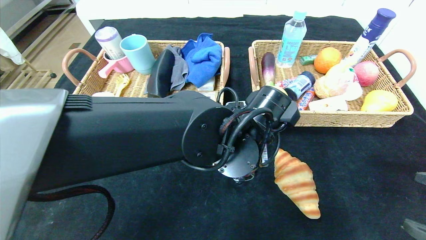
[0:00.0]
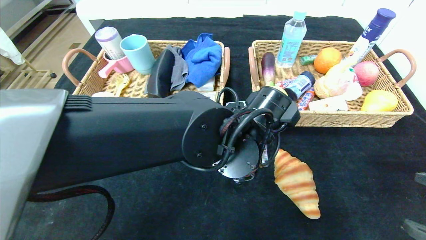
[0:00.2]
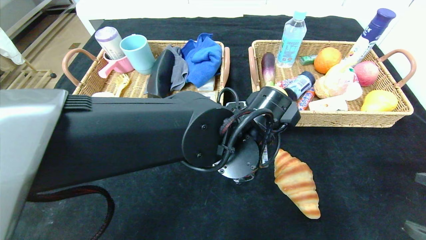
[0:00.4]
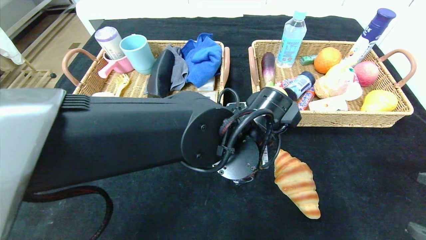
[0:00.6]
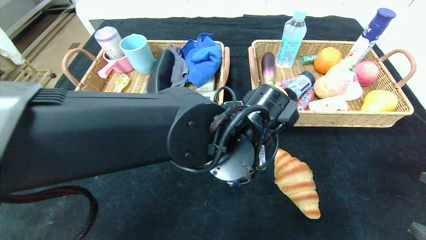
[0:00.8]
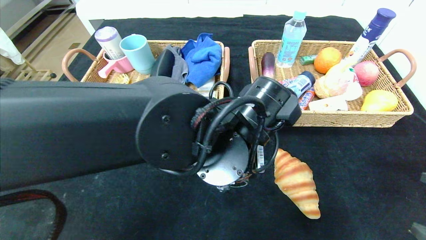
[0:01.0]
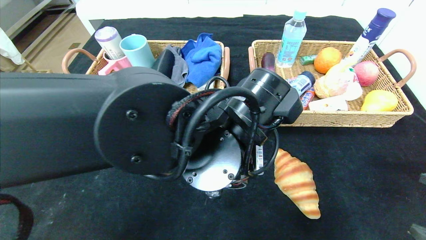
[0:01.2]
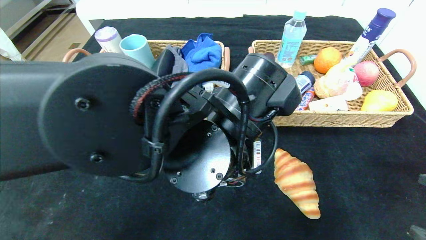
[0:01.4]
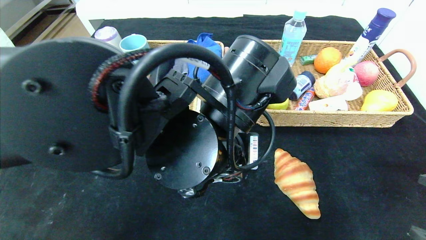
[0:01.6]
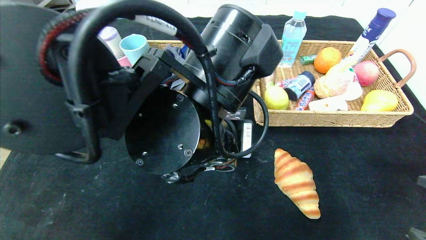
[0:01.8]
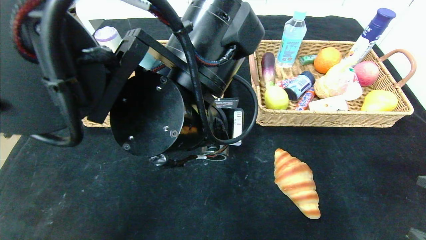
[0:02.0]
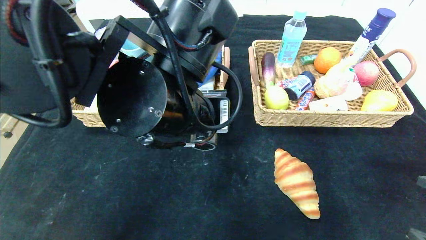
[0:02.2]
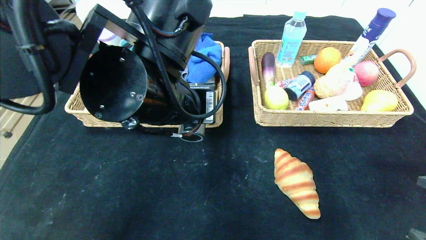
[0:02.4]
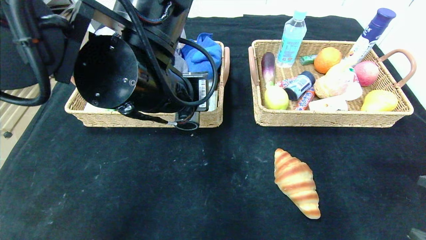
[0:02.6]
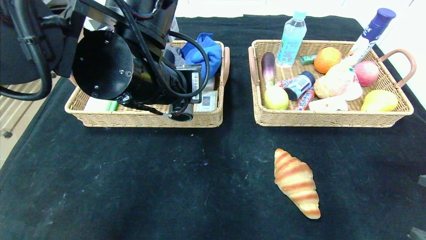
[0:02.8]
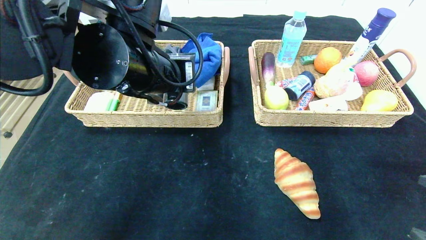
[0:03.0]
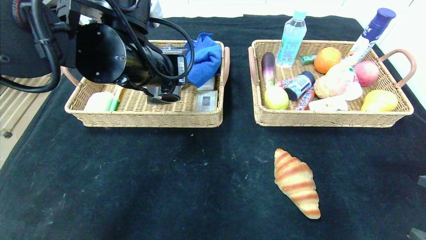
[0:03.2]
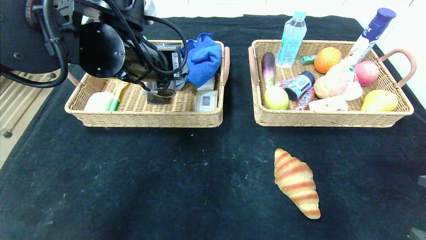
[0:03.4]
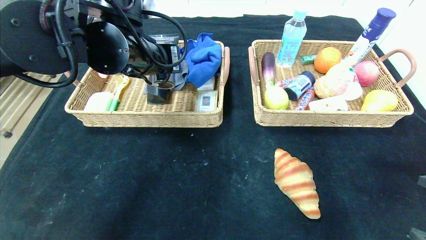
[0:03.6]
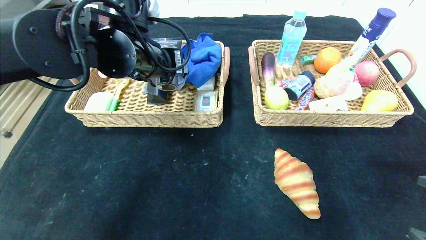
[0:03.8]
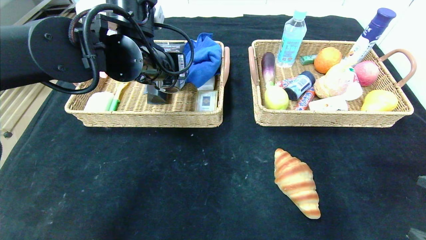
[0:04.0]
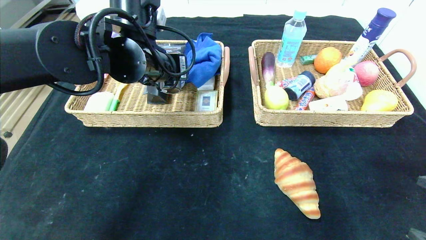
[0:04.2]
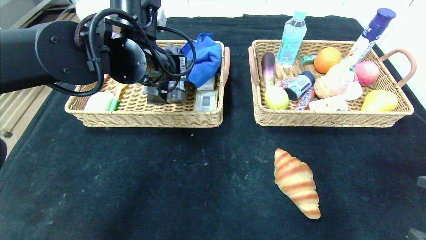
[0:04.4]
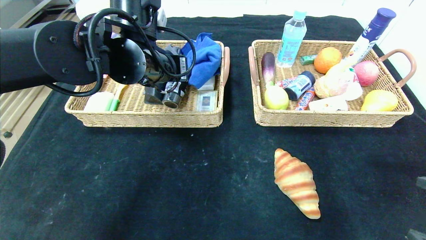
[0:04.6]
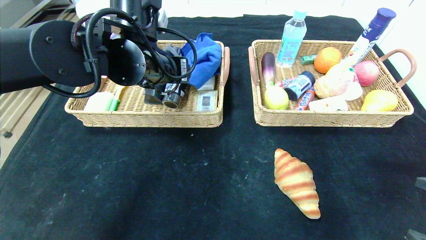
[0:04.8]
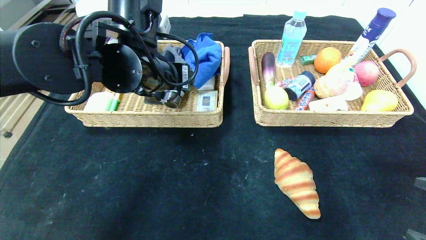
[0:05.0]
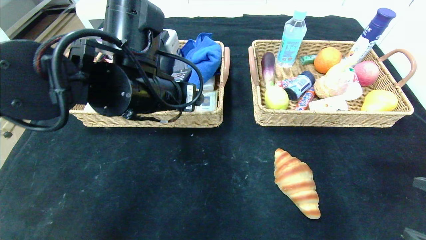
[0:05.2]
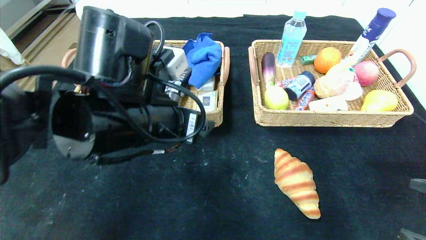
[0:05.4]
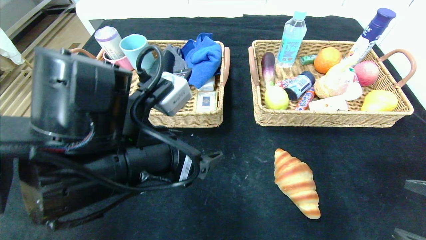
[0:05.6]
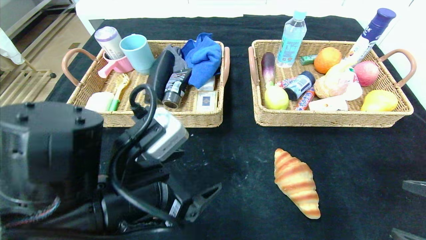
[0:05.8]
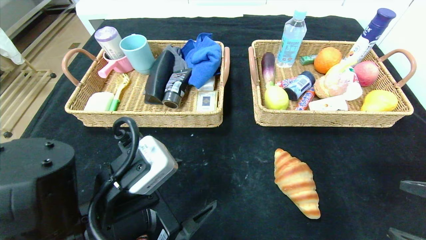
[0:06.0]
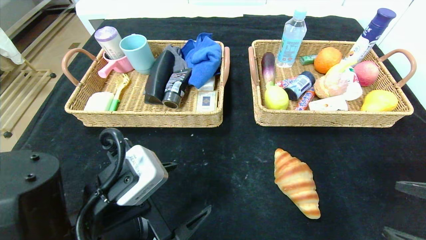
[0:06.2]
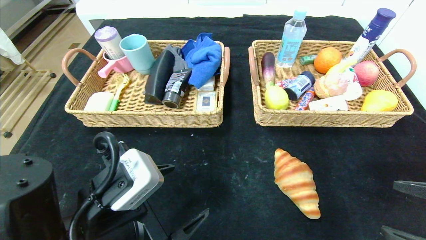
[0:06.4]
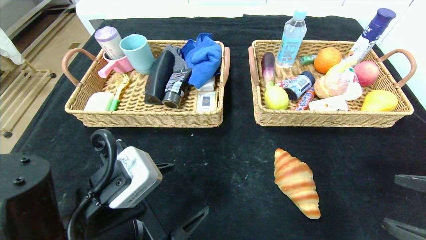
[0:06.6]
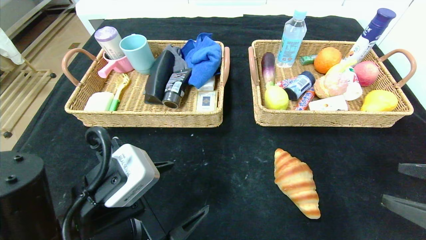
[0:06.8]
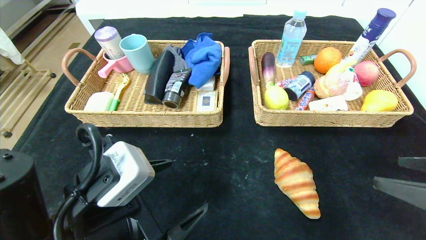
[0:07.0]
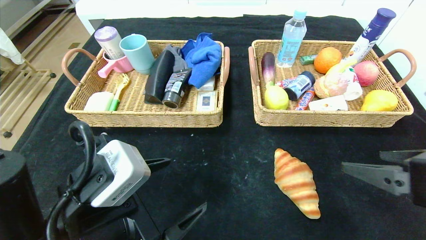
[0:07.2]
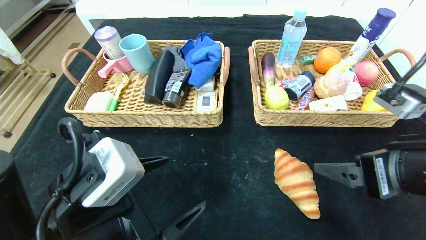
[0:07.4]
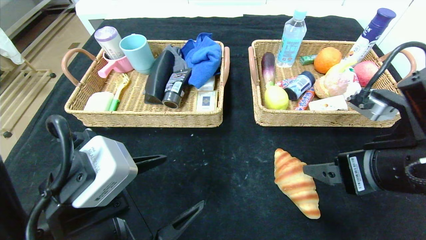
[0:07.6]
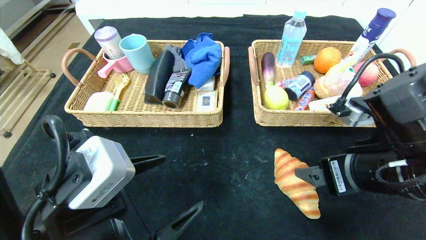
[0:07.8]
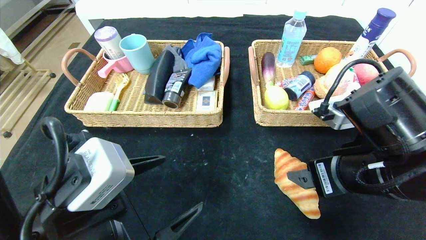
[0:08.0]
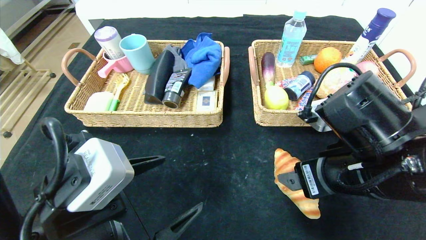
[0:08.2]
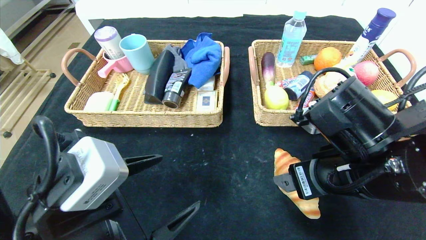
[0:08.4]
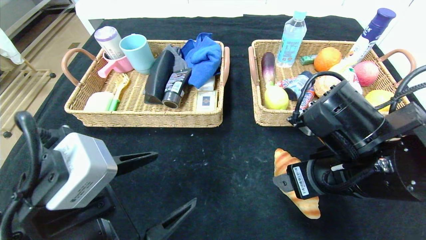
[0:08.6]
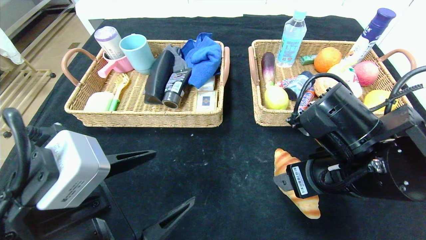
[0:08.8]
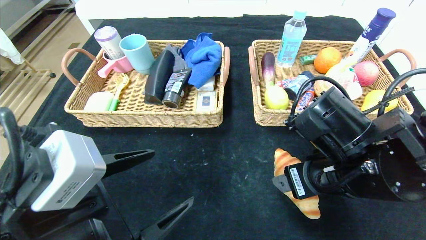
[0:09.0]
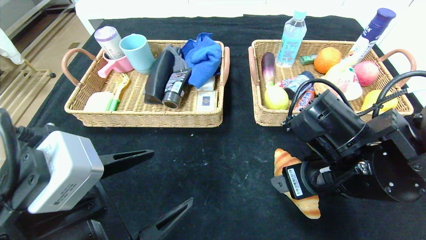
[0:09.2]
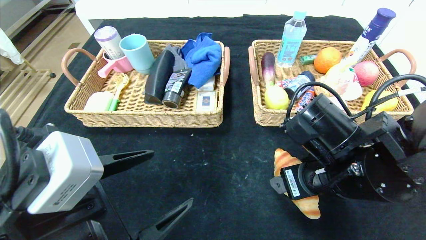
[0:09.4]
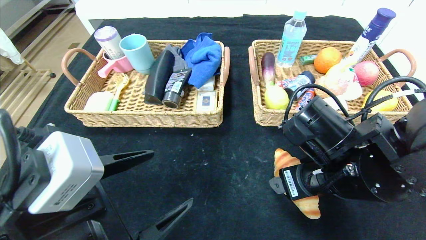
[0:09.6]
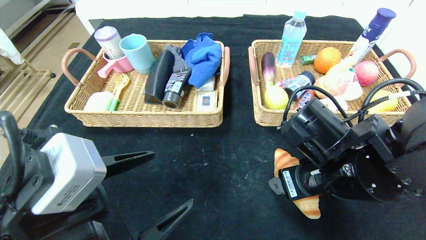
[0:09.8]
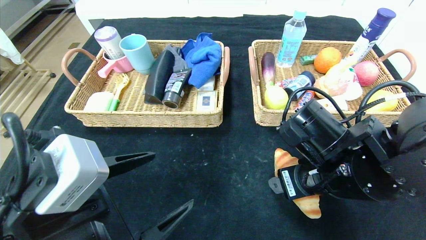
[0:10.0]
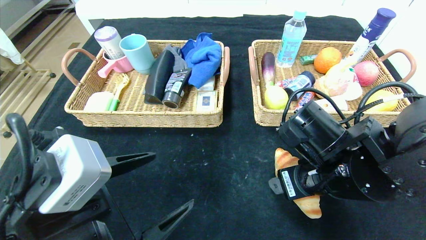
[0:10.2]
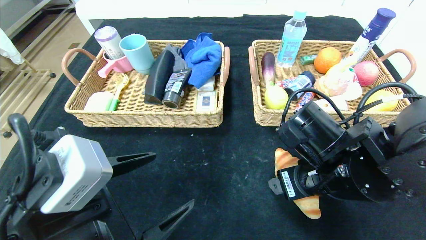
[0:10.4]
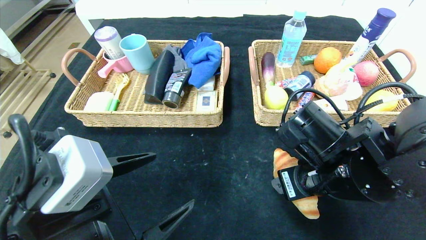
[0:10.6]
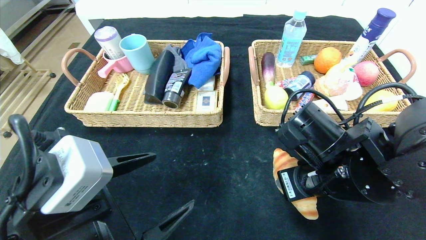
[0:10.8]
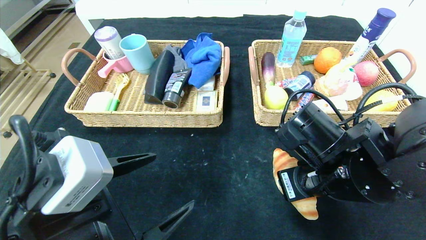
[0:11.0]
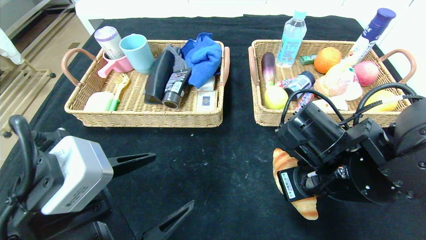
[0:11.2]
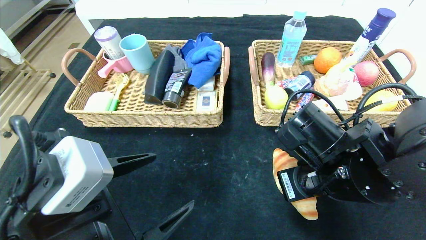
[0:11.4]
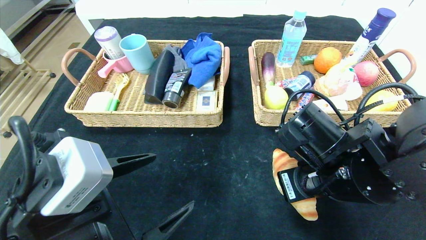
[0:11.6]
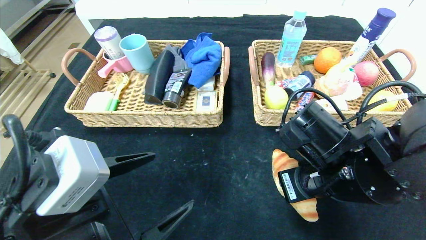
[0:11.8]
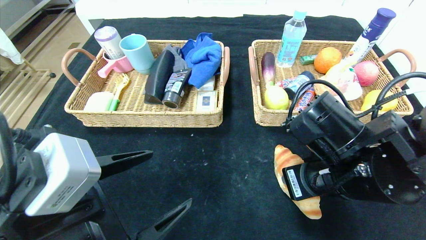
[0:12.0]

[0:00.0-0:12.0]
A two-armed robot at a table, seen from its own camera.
Step, 0:00.0 to 0:05.0: Grasp the hard cleanser and put it in the left basket.
0:00.0 to 0:01.6: The left gripper is displaced upward and backward by roughly 10 cm.
0:01.6 to 0:03.0: The left gripper moves to the left, forward and upward, some 15 cm.
0:03.0 to 0:04.4: The left gripper goes about 5 cm forward.
0:04.4 to 0:06.0: The left gripper shifts approximately 25 cm backward and downward, and opens.
0:06.0 to 0:07.6: The right gripper heads to the left and forward, covering about 15 cm.
0:07.6 to 0:09.0: The right gripper moves to the left, about 5 cm.
0:09.0 to 0:10.4: The grippers move only a little.
0:10.4 to 0:12.0: The right gripper closes.

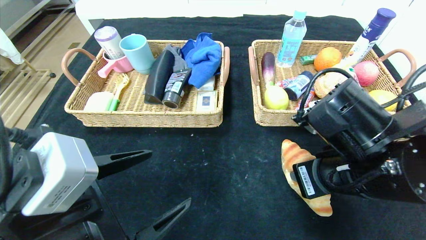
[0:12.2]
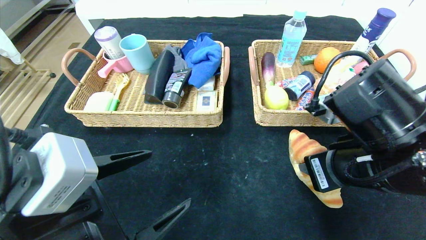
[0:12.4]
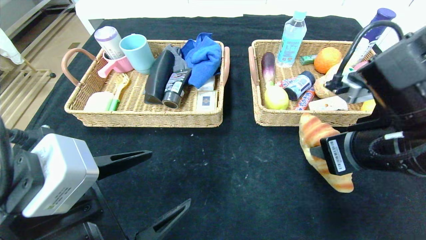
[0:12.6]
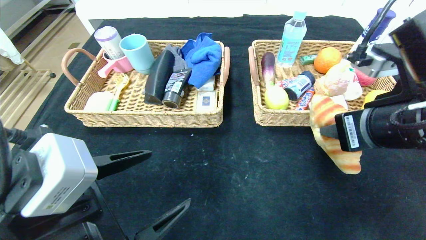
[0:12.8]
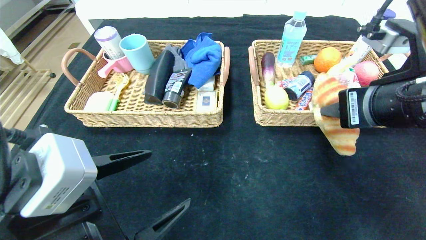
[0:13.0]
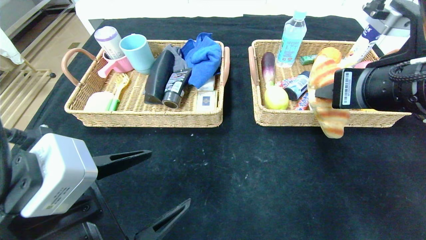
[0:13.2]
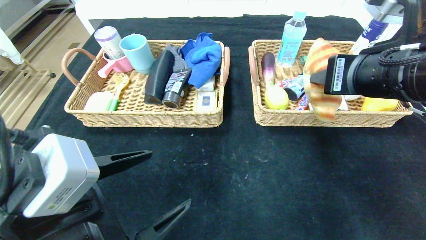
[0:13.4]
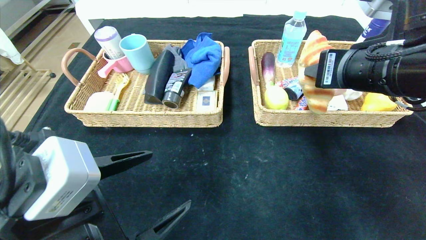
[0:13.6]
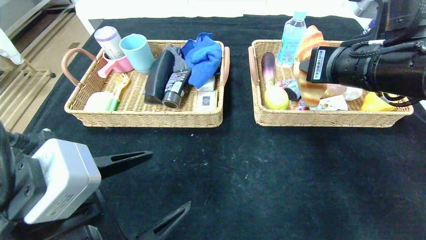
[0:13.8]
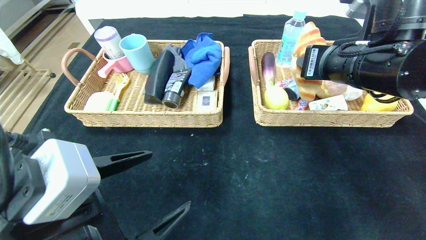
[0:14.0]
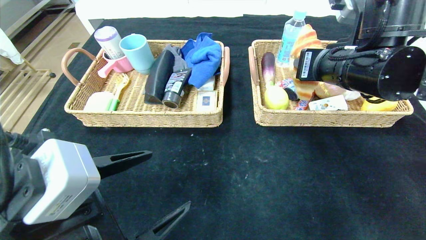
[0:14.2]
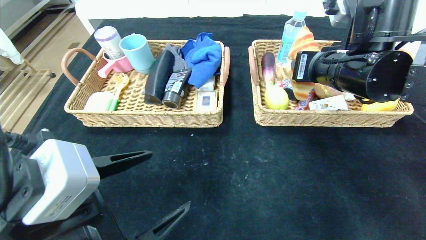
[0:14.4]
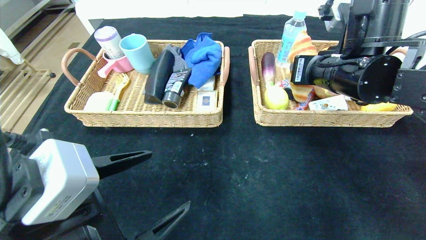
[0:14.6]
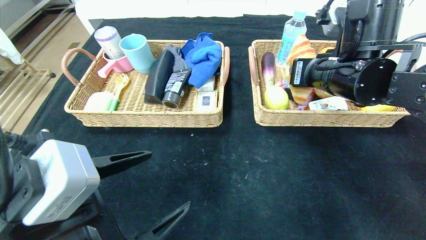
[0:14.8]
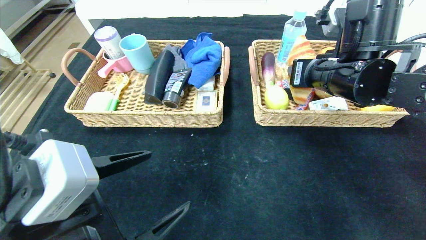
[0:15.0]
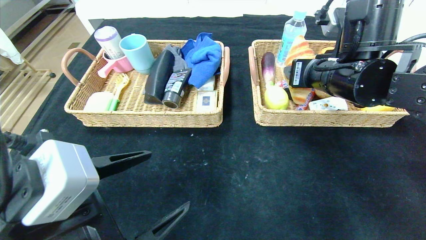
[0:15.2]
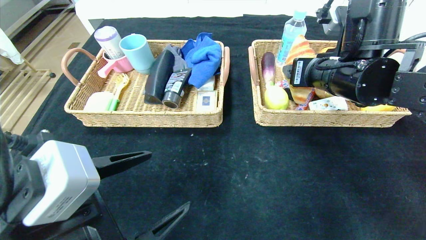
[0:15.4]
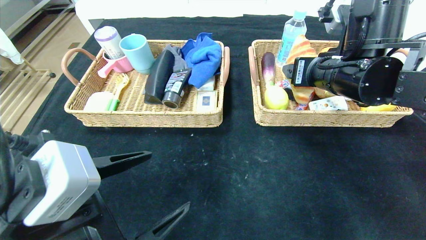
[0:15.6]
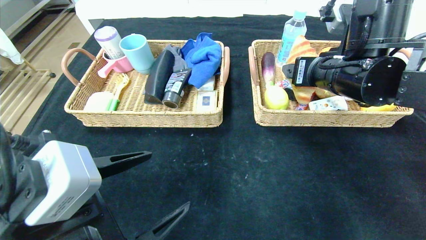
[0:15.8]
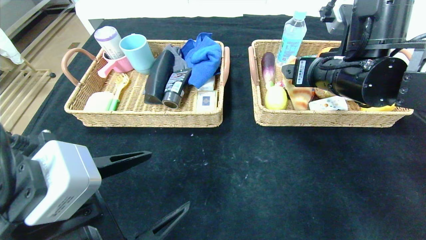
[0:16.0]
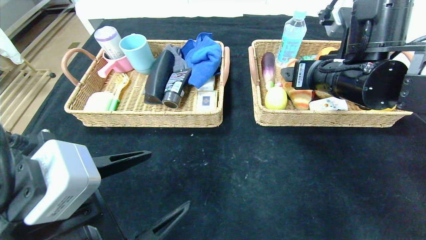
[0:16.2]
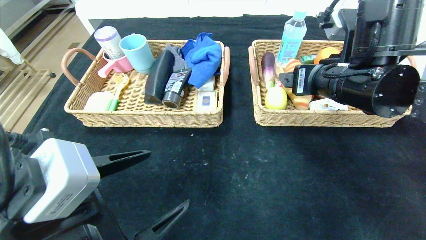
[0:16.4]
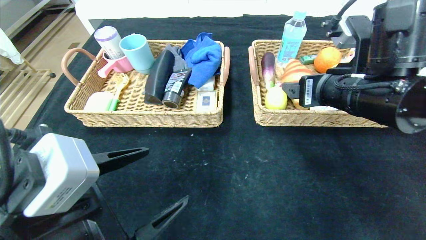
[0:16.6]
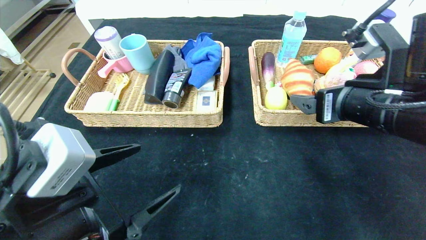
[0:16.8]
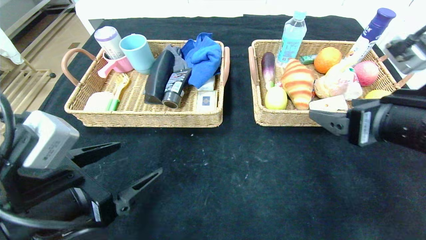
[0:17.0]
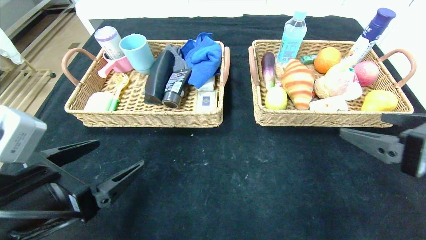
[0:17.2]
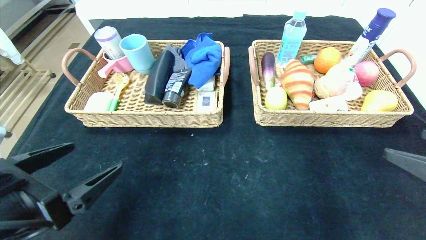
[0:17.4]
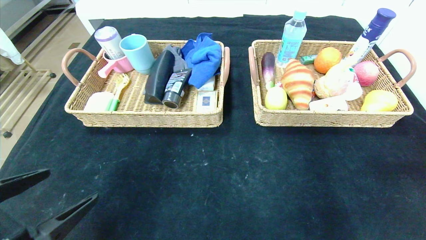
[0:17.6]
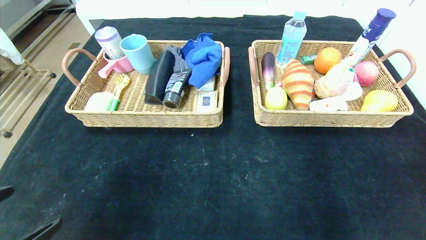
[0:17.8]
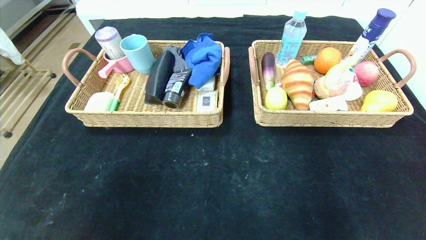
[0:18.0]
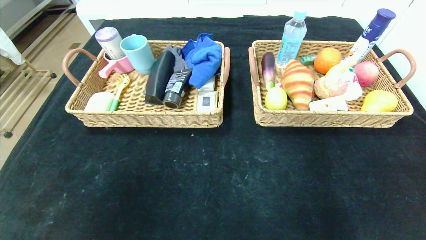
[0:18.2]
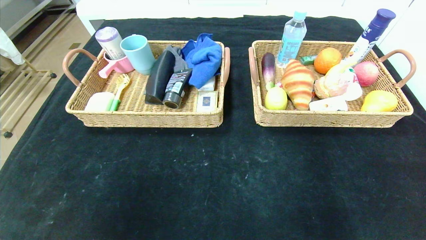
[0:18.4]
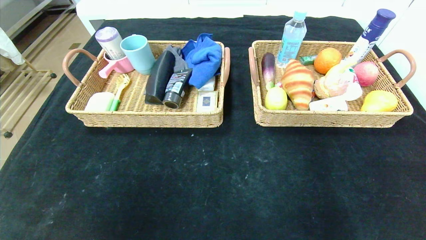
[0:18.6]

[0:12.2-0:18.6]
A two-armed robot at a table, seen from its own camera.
Step, 0:12.2 to 0:16.4: Grasp the croissant and put it in the right basket.
0:12.2 to 0:13.8: The right gripper shifts approximately 10 cm upward and forward.
0:13.8 to 0:15.4: The right gripper ends up approximately 5 cm from where it was, and opens up.
0:15.4 to 0:17.0: The right gripper travels backward and to the right by roughly 15 cm.
0:17.0 to 0:18.6: Both grippers move backward, approximately 25 cm.
